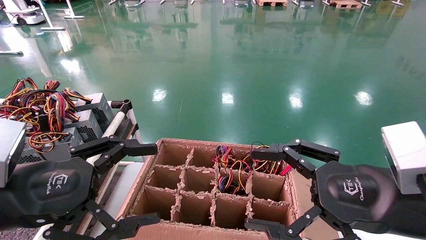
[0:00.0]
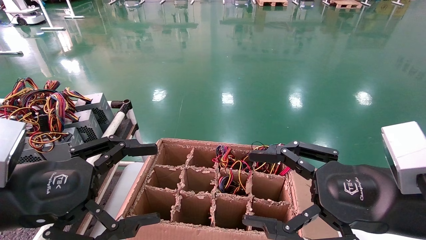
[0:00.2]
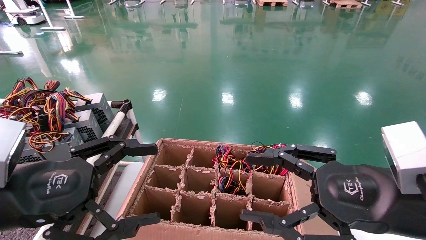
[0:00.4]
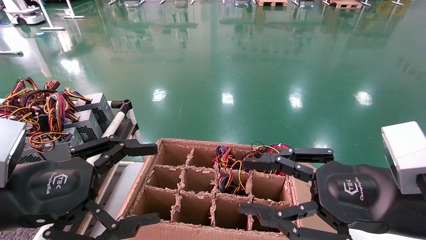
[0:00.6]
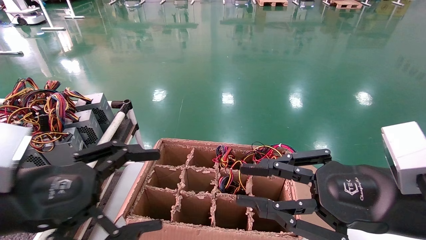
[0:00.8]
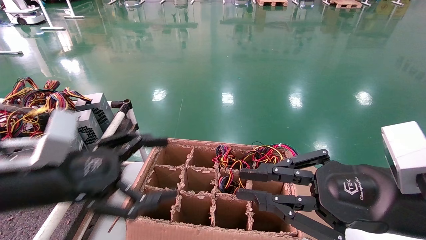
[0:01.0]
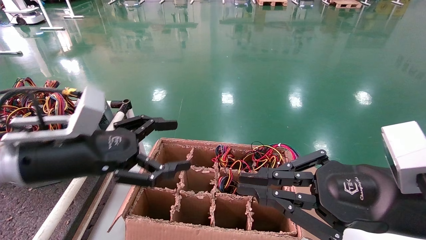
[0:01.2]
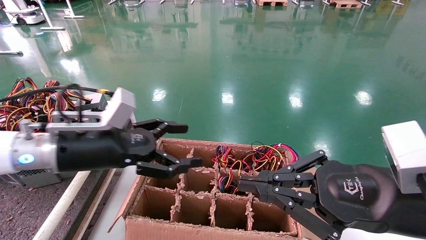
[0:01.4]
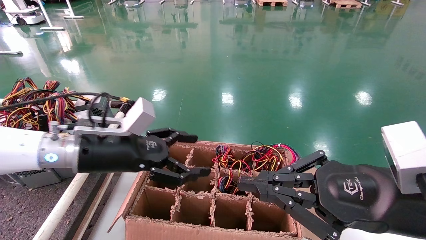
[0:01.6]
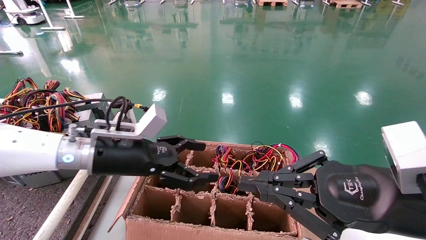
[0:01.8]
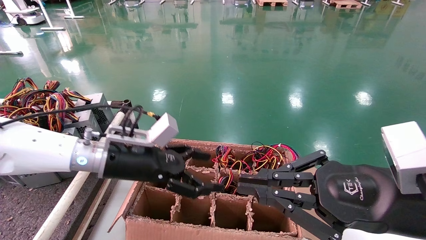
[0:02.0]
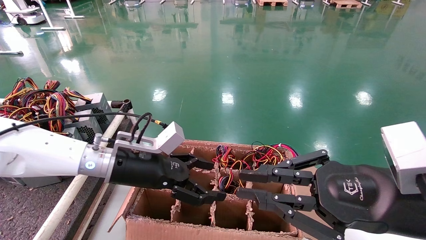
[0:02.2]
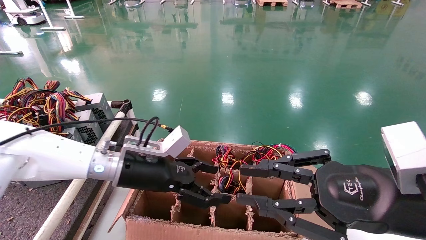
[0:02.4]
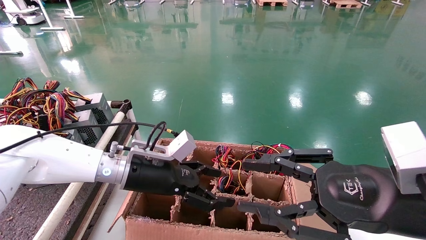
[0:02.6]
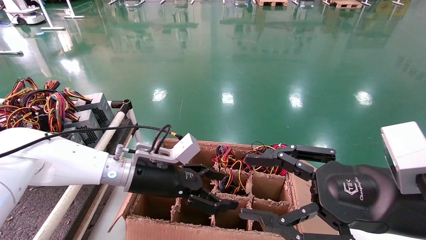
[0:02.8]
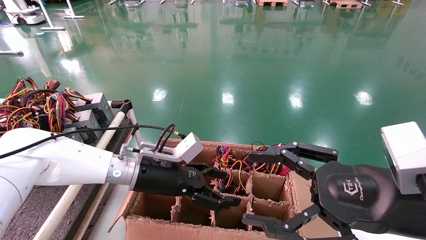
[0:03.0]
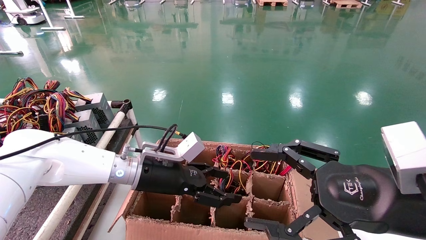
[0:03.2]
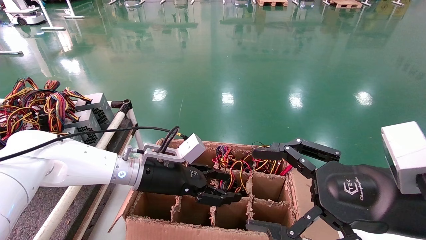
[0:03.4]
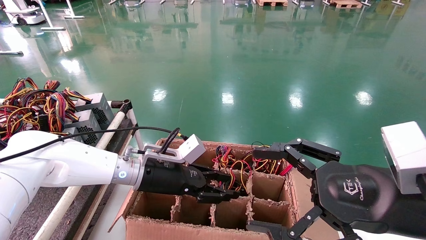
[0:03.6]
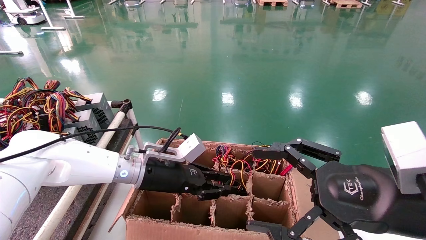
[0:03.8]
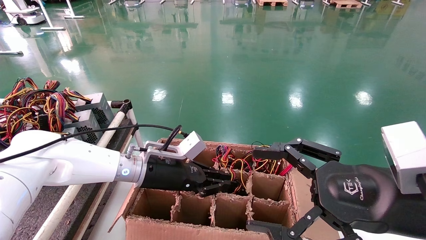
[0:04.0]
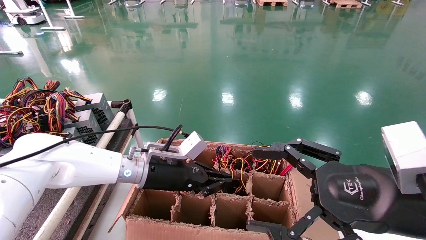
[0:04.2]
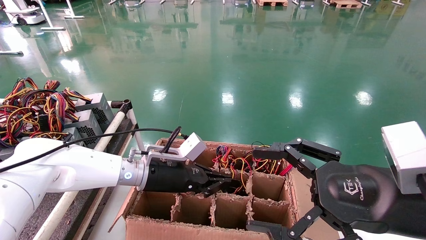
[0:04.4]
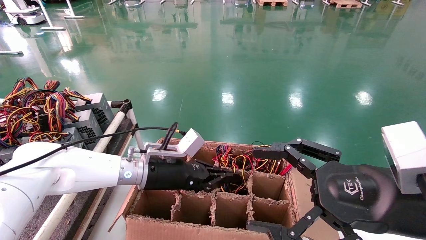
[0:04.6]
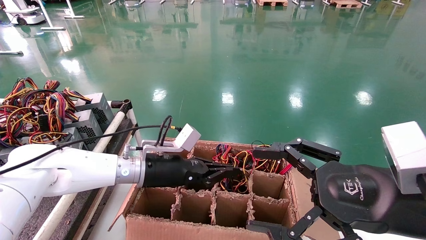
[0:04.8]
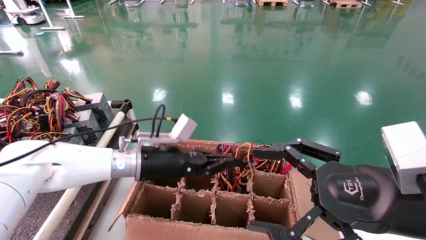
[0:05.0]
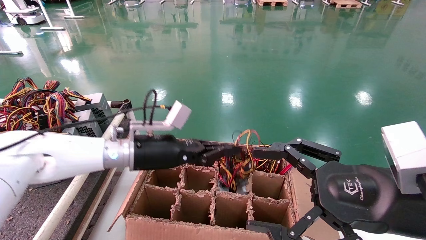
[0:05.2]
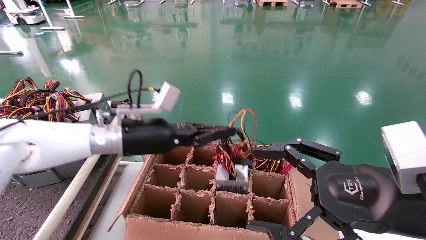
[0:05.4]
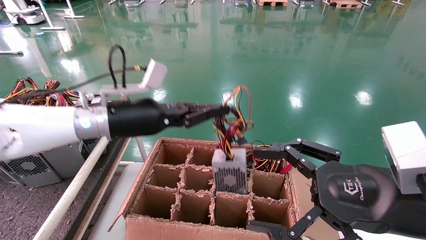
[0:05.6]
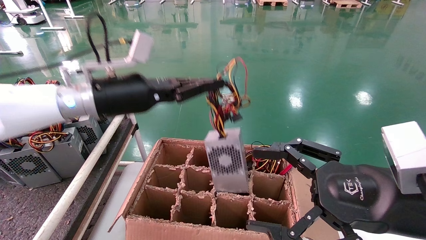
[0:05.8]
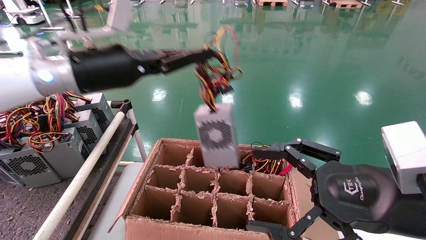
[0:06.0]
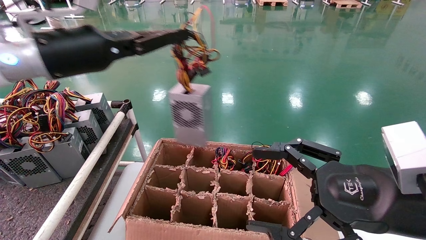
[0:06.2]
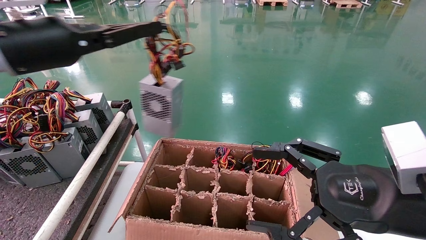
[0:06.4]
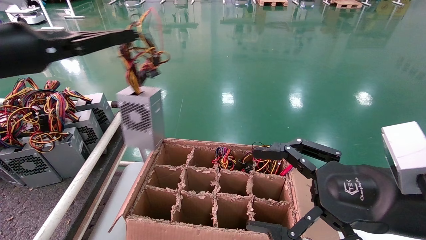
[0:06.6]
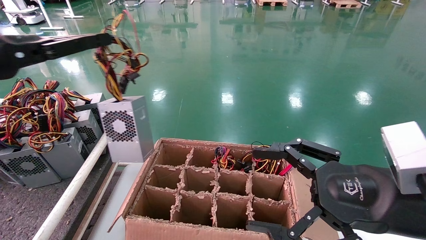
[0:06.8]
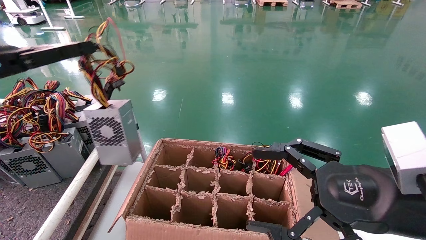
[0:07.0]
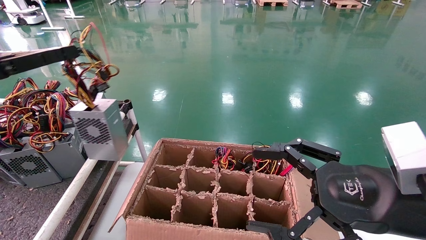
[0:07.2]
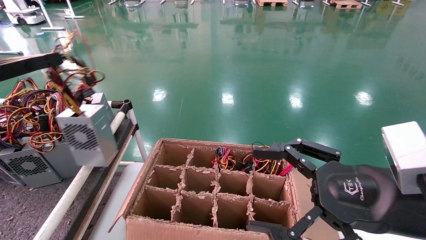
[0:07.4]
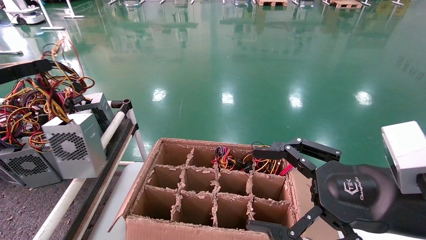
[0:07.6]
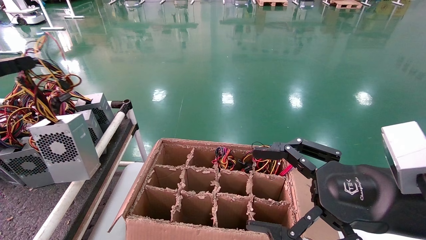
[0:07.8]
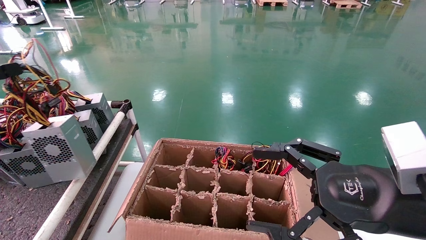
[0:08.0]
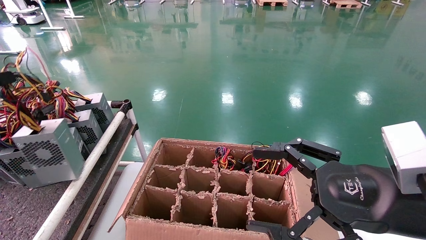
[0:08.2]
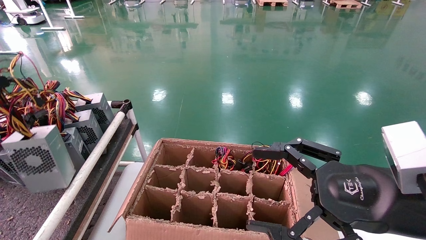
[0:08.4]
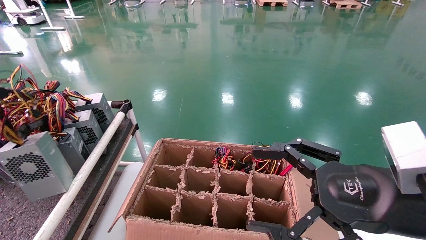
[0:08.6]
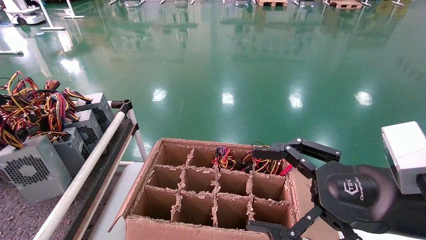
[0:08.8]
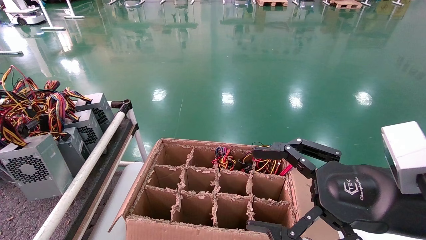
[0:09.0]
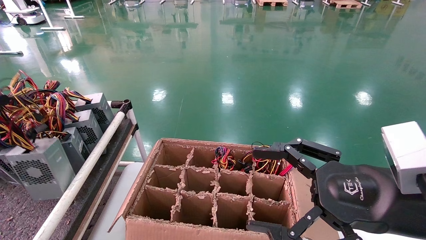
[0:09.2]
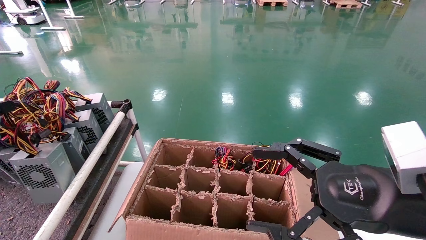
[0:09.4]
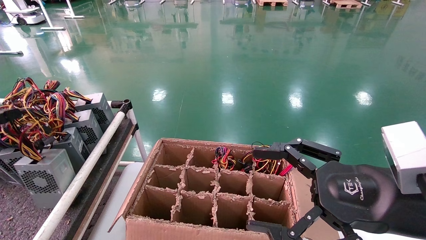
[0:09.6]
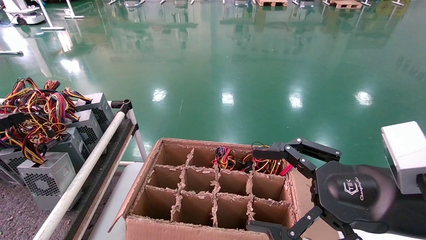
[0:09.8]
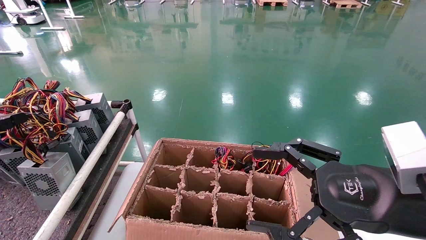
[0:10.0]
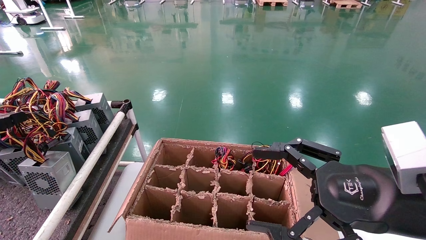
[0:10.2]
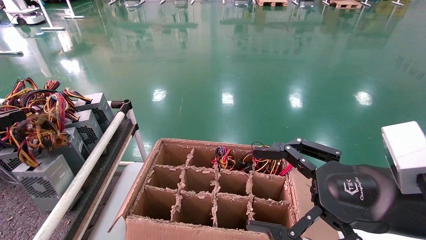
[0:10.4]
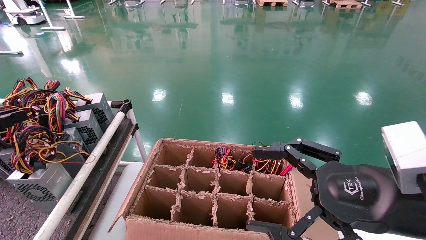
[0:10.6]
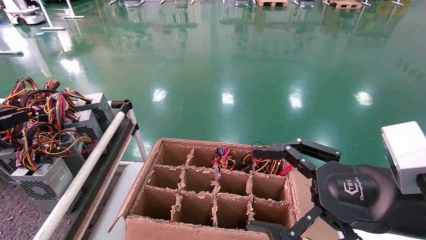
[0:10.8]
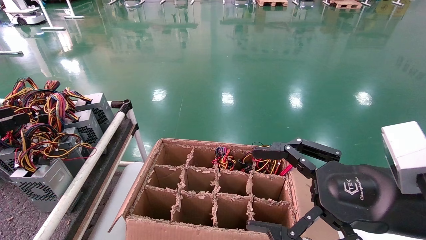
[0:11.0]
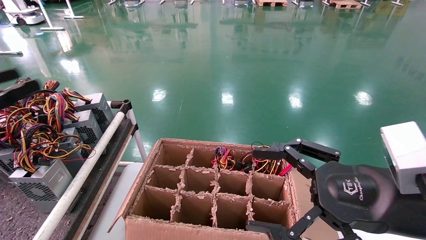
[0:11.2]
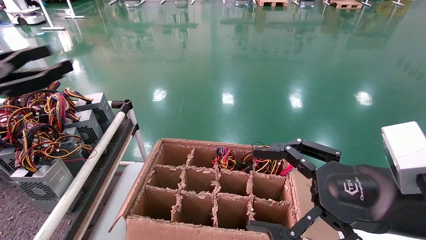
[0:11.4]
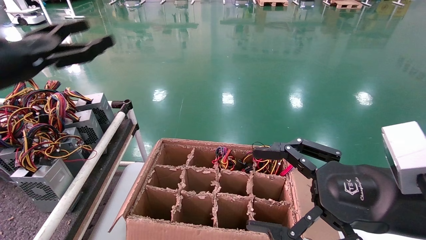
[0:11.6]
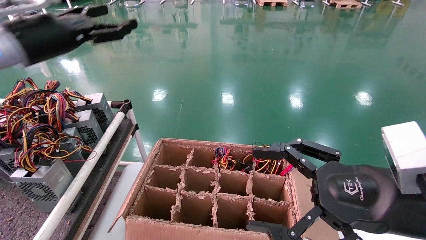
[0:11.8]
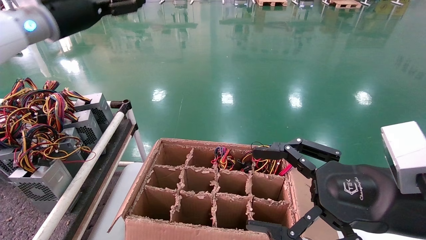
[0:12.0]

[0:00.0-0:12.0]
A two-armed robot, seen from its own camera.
Step, 0:01.4 to 0:04.6: Grab and lift the power supply from the large box.
Step, 0:04.8 to 0:11.0: Place the power supply on the operating table.
0:00.0 to 0:01.6: The right gripper closes up. Meanwhile the left gripper moves forward and to the right, about 15 cm.
0:01.6 to 0:03.0: The right gripper opens up. The left gripper heads to the right, downward and forward, covering about 10 cm.
0:03.0 to 0:04.4: The left gripper closes up.
0:04.4 to 0:06.0: The left gripper goes some 25 cm upward and to the left.
0:06.0 to 0:07.6: The left gripper goes some 25 cm to the left and backward.
0:07.6 to 0:09.0: The left gripper travels downward and to the left by approximately 10 cm.
0:09.0 to 0:10.4: The grippers make only small movements.
0:10.4 to 0:12.0: The left gripper heads to the right, forward and upward, covering some 35 cm, and opens its fingers.

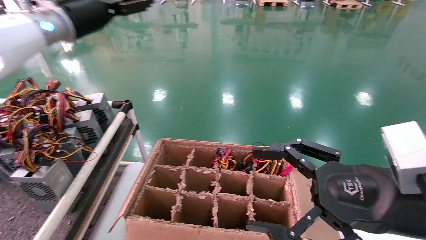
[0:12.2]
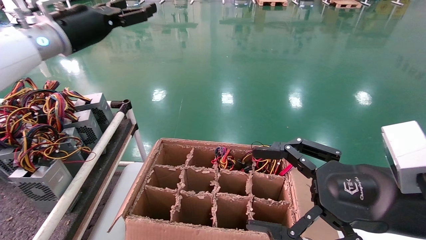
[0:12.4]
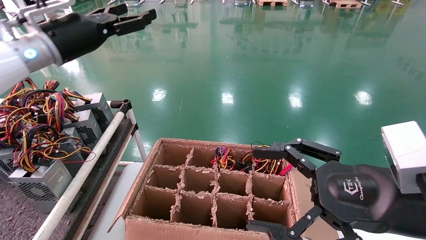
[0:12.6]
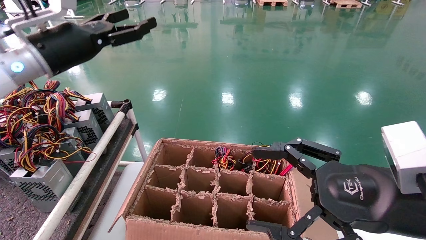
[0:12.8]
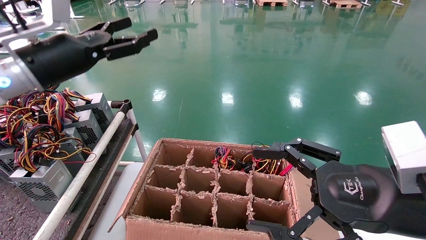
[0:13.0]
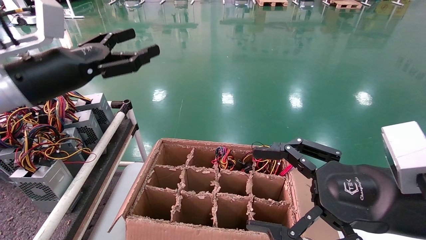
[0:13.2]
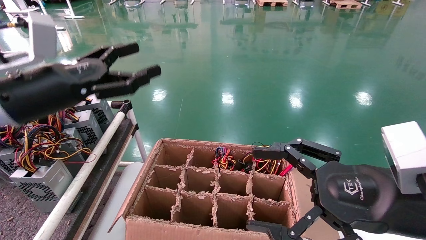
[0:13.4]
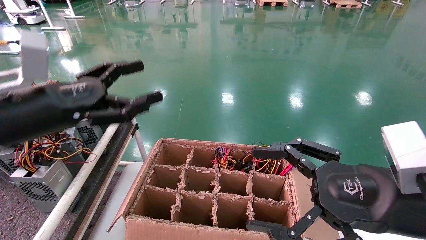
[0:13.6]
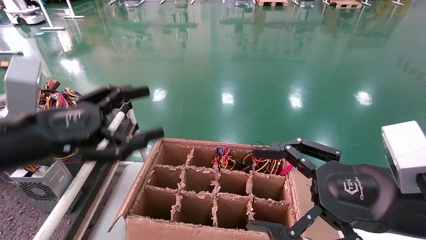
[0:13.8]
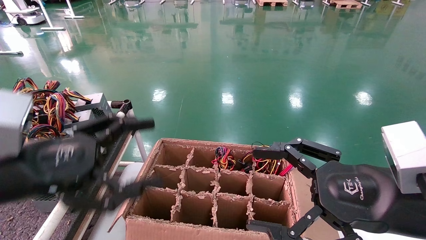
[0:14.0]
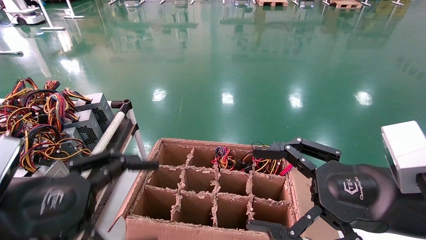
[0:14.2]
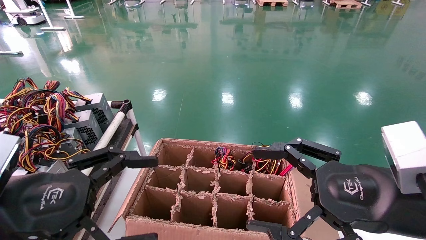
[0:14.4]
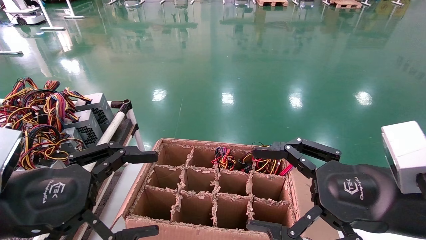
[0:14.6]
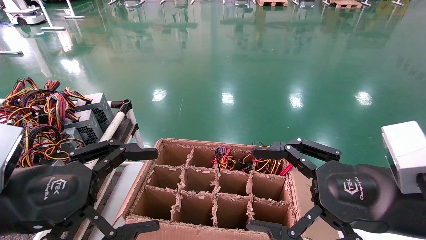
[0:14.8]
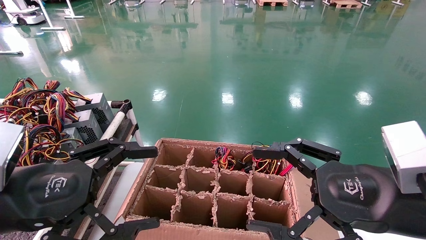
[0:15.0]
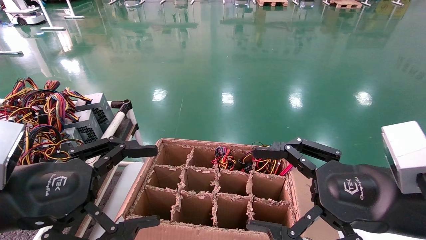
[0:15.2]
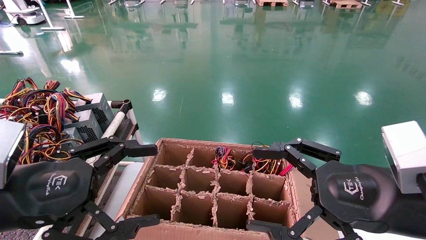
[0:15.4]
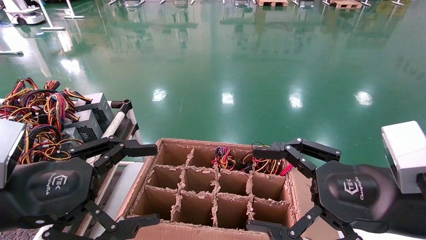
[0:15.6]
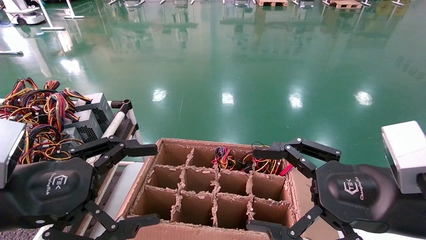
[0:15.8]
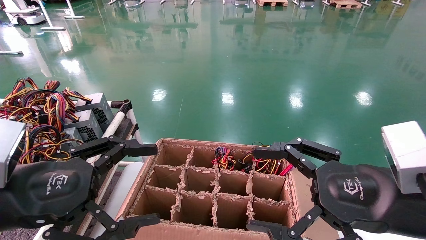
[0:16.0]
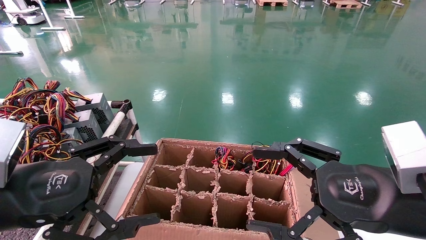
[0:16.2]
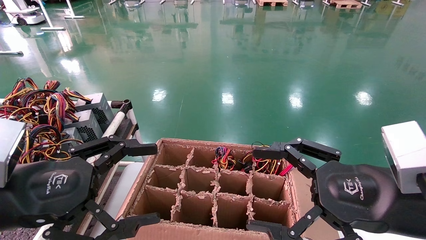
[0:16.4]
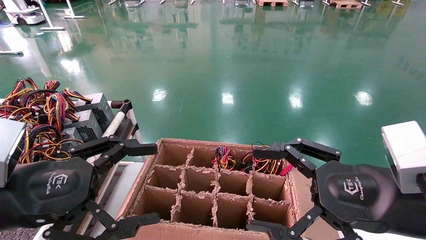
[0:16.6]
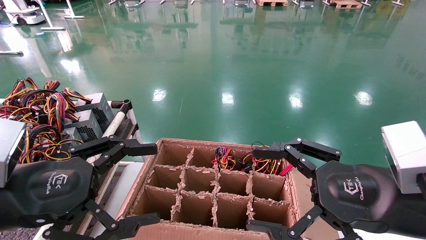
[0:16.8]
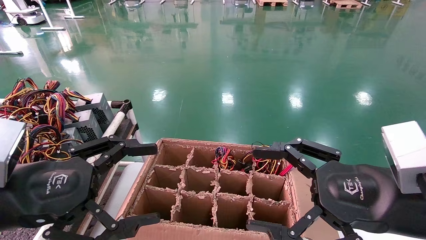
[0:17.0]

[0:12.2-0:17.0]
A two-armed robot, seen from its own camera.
0:12.2 to 0:13.8: The left gripper heads backward and downward, covering some 25 cm.
0:13.8 to 0:15.4: The left gripper moves backward, about 5 cm.
0:15.4 to 0:17.0: Both grippers stay about where they are.
